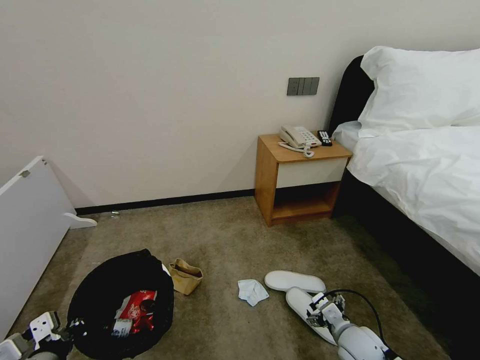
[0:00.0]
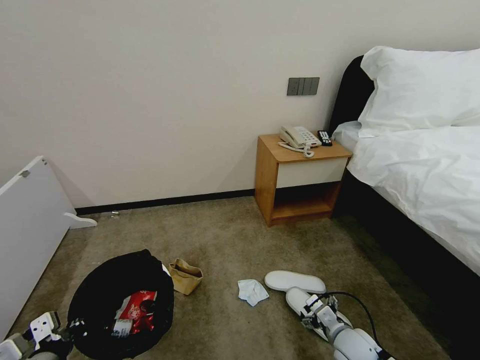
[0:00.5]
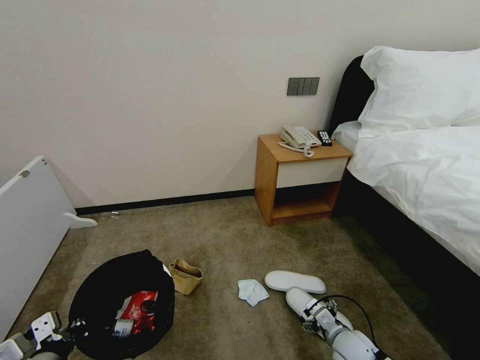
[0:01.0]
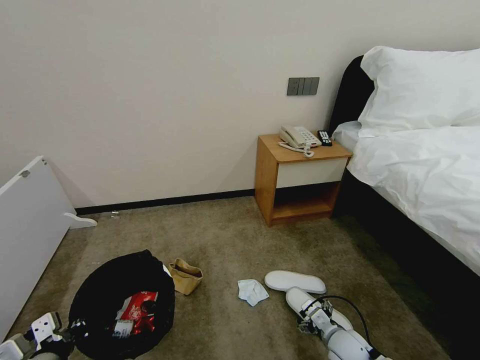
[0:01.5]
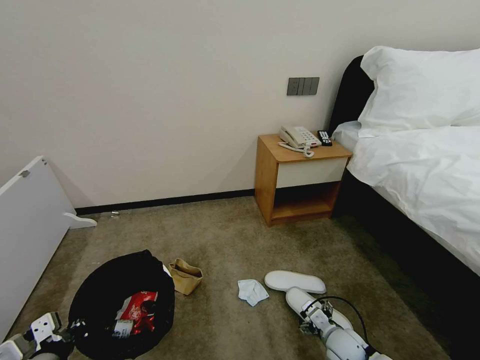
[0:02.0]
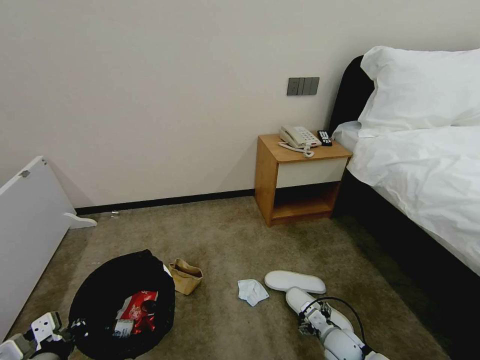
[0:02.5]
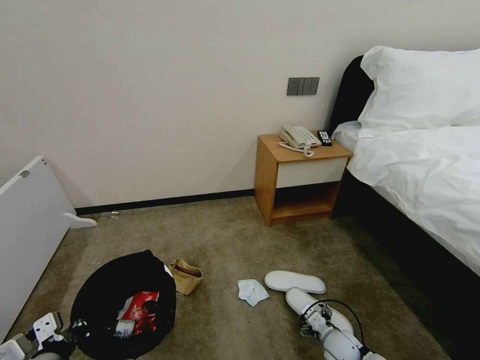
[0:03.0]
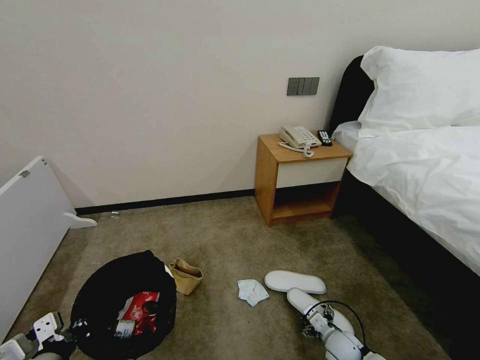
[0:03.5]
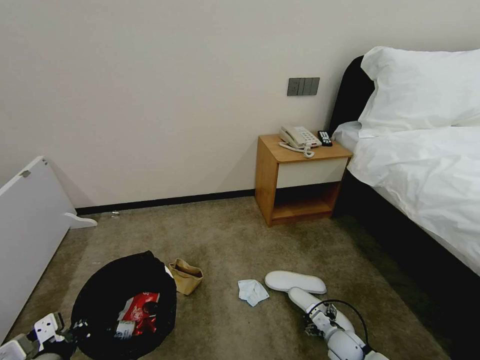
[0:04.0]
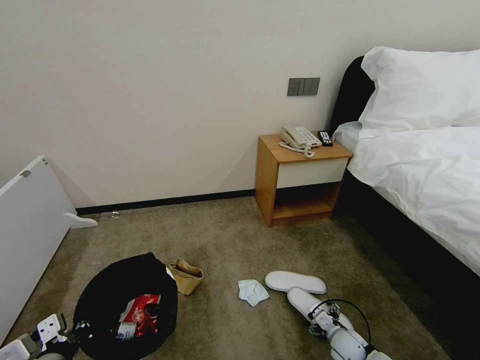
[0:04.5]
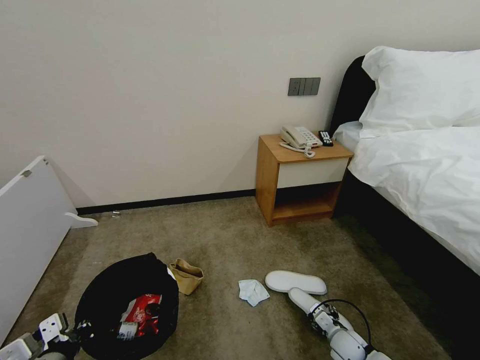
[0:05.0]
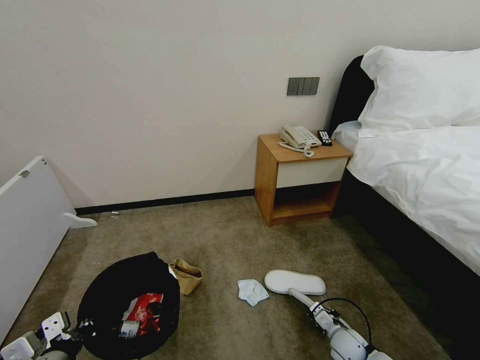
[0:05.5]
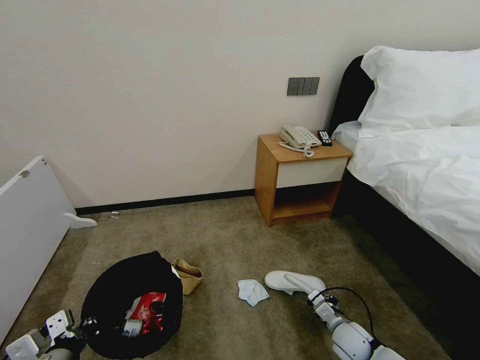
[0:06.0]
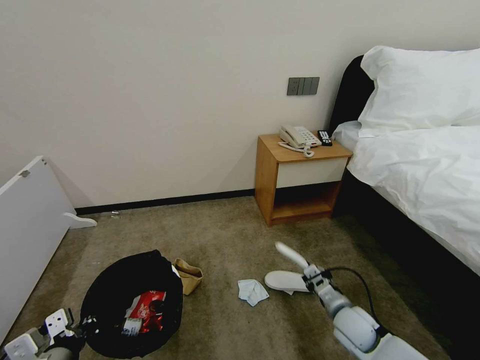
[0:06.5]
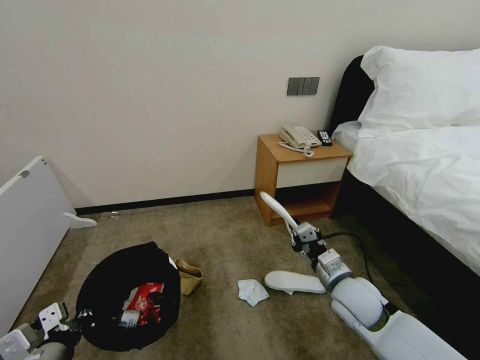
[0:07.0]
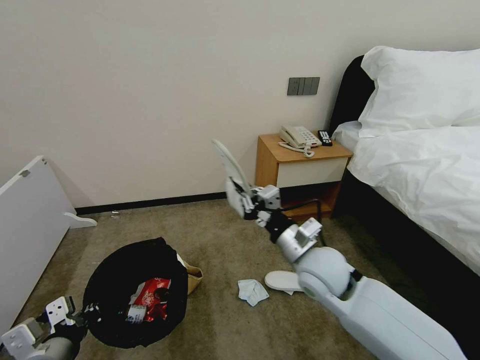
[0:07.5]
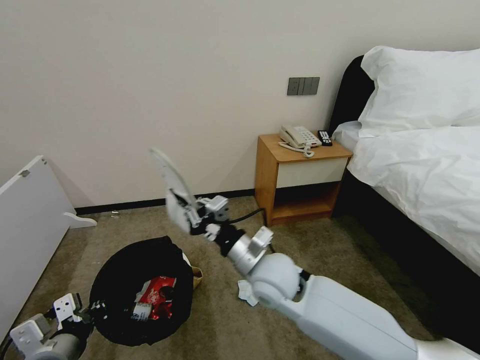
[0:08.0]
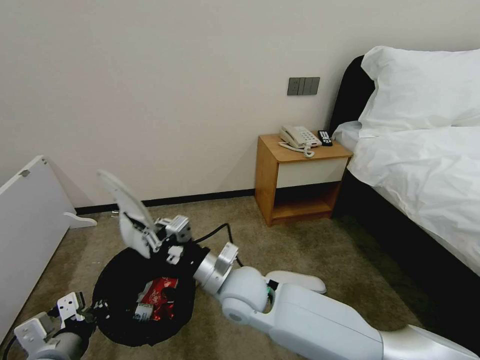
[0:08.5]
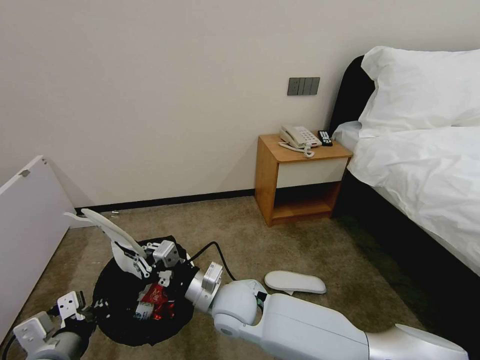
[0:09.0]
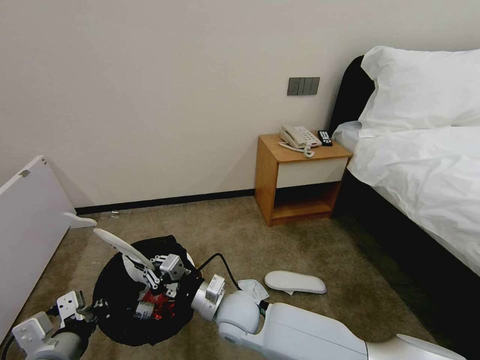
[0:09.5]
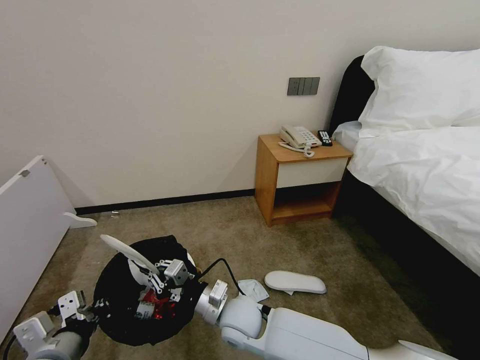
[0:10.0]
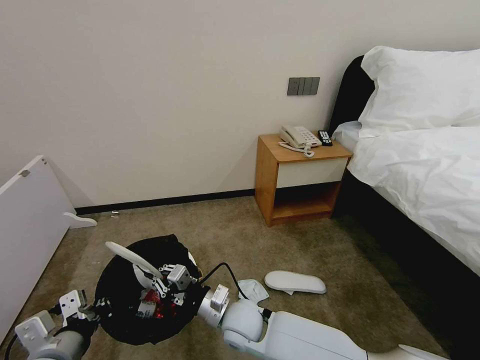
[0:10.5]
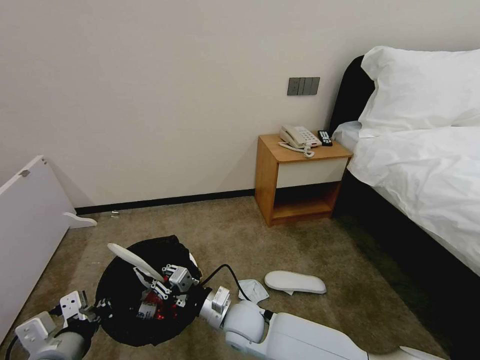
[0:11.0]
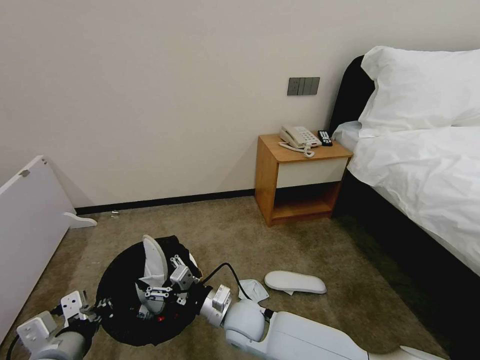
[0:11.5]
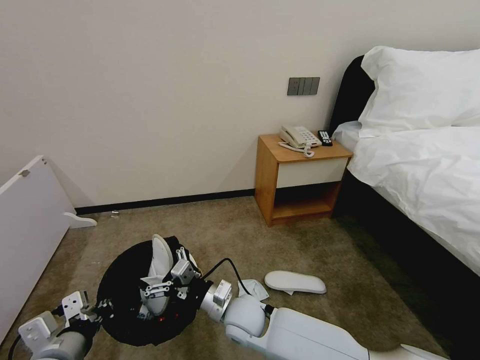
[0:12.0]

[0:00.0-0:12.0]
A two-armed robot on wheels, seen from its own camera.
Task of the whole recording: Pick up the trash bin, then pick up the garbage from the floor and place it into the trash bin.
0:00.0 to 0:02.0: The right gripper is displaced downward by some 5 cm.
0:02.0 to 0:04.0: The grippers make only small movements.
0:04.0 to 0:06.0: The right gripper shifts about 5 cm upward, and closes its fingers.
0:06.0 to 0:08.0: The right gripper moves upward and to the left, approximately 35 cm.
0:08.0 to 0:10.0: The right gripper travels downward and to the left by approximately 15 cm.
0:10.0 to 0:12.0: The right gripper opens its fingers.

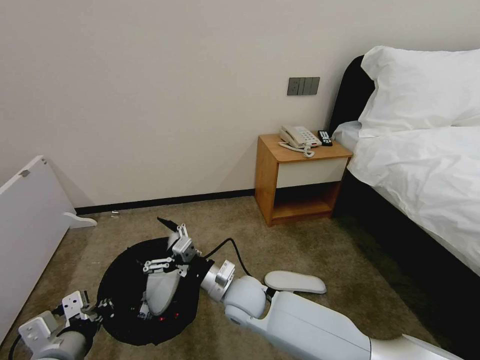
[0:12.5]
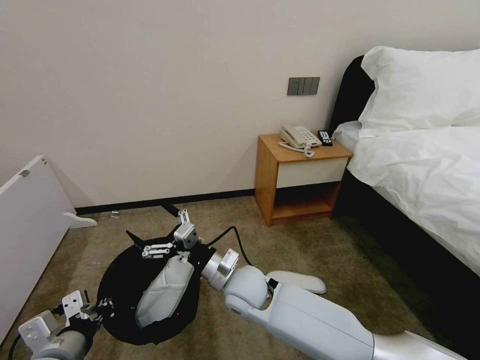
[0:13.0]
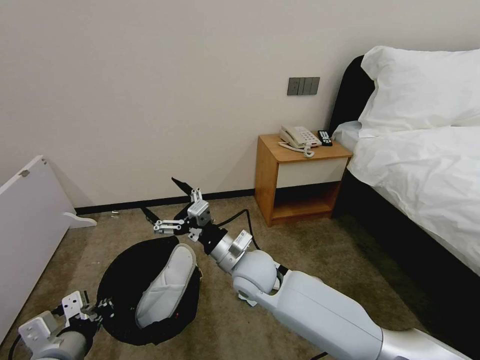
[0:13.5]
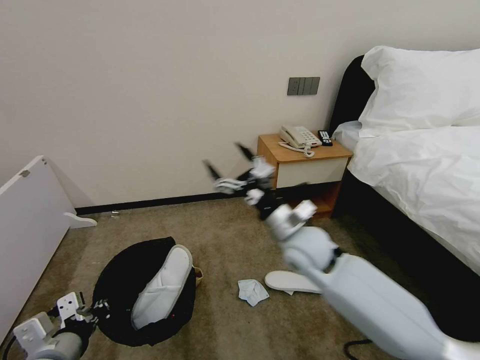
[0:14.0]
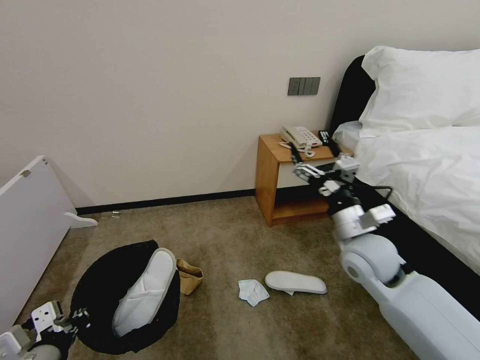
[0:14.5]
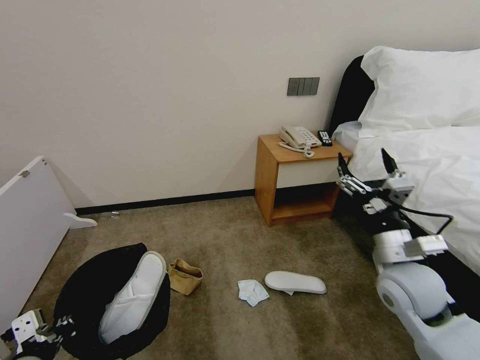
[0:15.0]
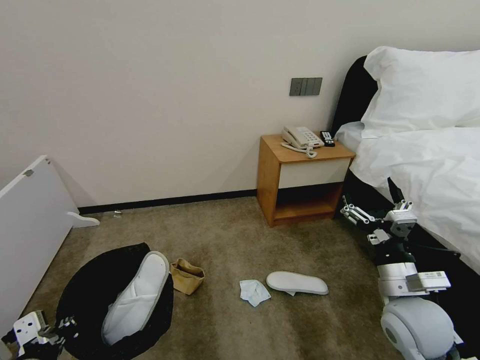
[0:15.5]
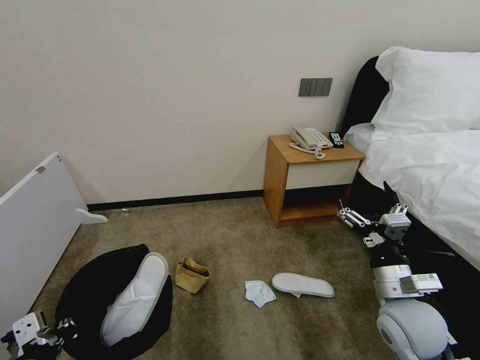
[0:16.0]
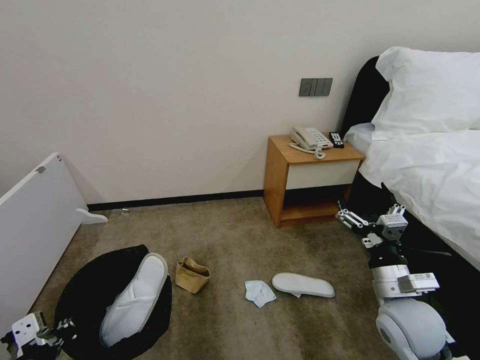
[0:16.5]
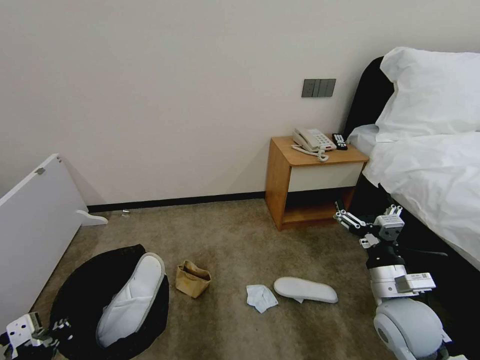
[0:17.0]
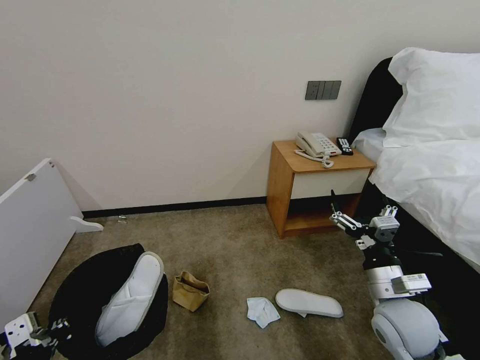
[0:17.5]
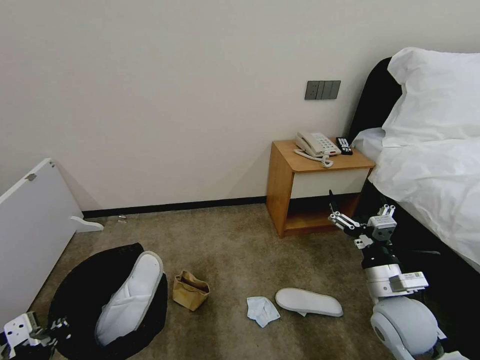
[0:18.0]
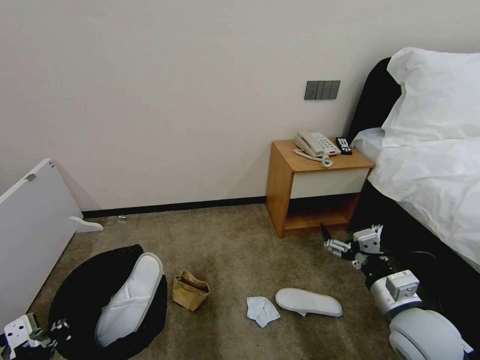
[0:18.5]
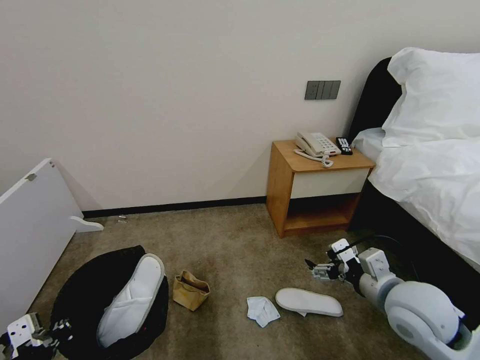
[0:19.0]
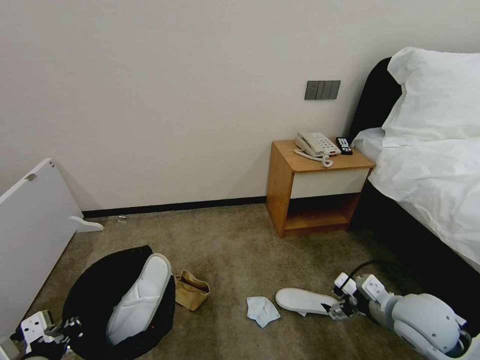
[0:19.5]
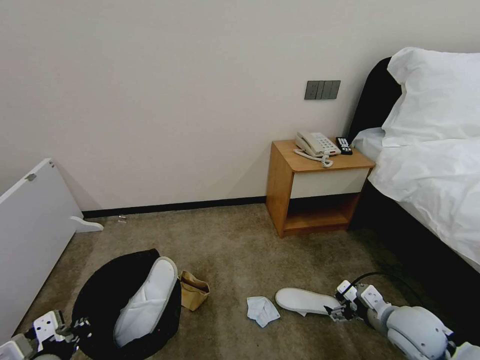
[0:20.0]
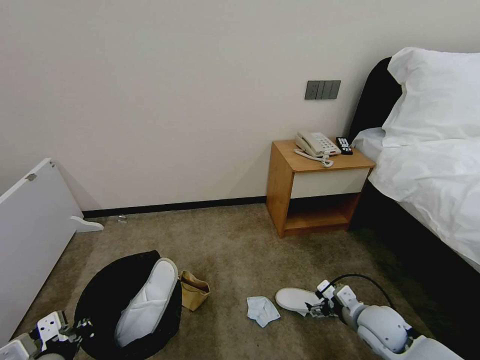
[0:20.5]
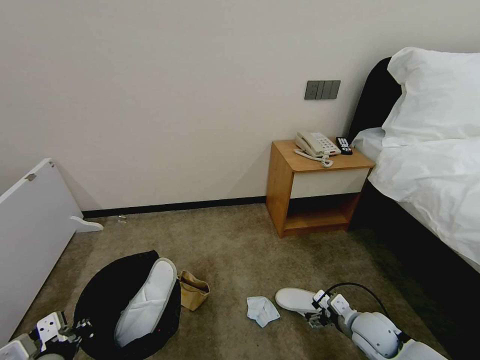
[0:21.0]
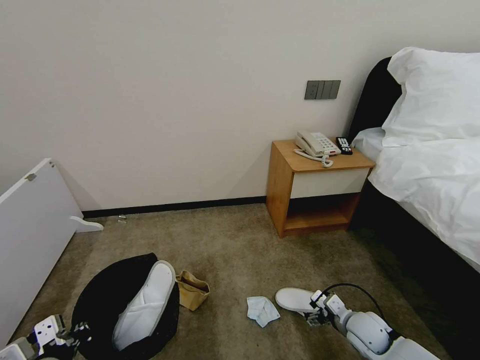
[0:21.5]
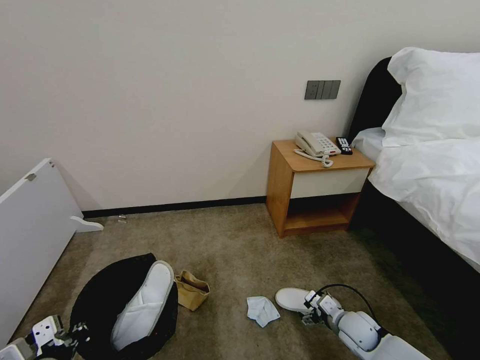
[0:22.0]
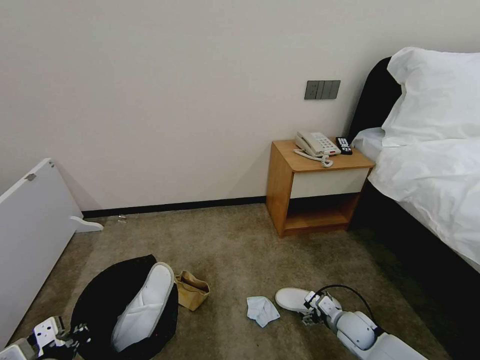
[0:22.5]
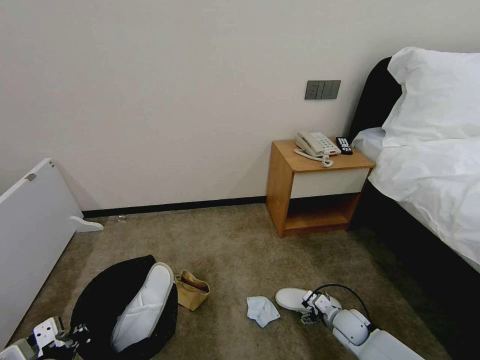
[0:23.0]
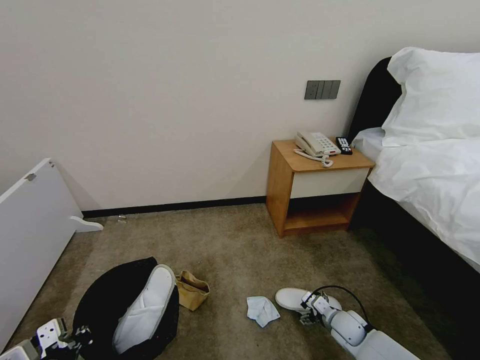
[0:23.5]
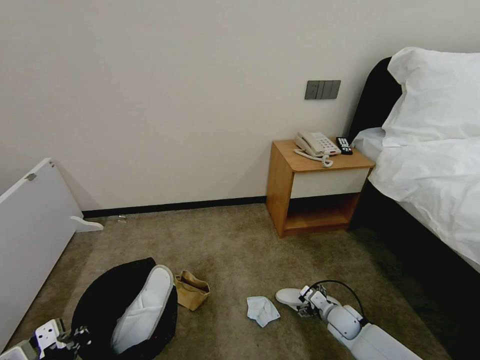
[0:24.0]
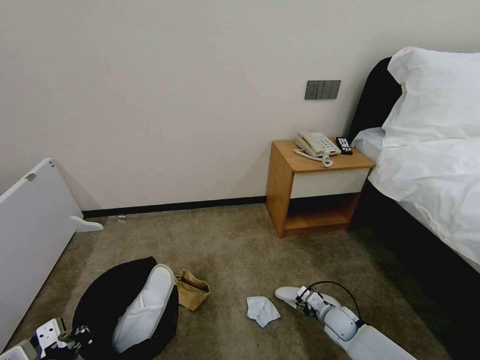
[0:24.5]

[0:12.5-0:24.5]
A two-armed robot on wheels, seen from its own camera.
Task of the whole recording: Pick up the trash bin, then pick up the garbage from the floor and place it into the trash bin.
0:12.5 to 0:14.5: The right gripper shifts approximately 25 cm to the right and upward.
0:14.5 to 0:16.5: The right gripper travels backward, downward and to the right by approximately 15 cm.
0:18.5 to 0:20.5: The right gripper moves downward and forward, about 15 cm.
0:20.5 to 0:22.5: The right gripper shifts roughly 10 cm downward.
0:22.5 to 0:24.5: The right gripper ends up some 5 cm from where it was, and closes its fingers.

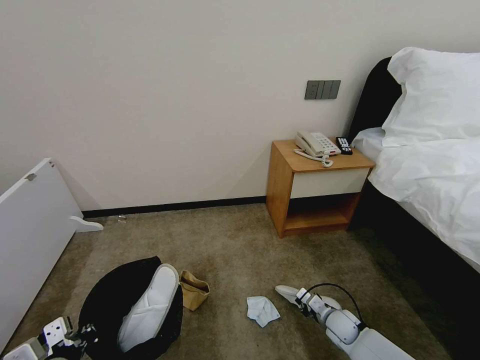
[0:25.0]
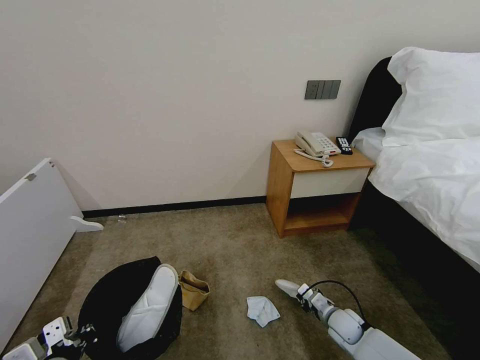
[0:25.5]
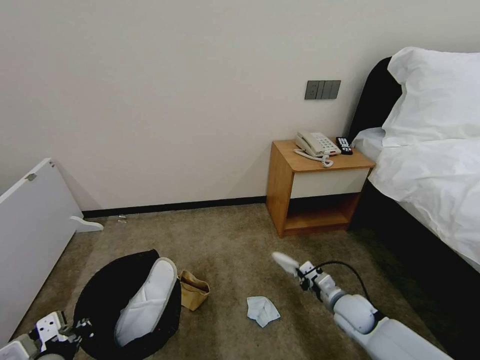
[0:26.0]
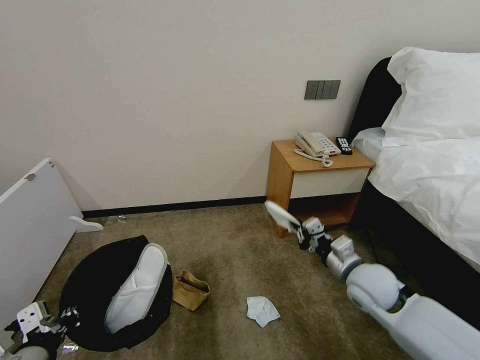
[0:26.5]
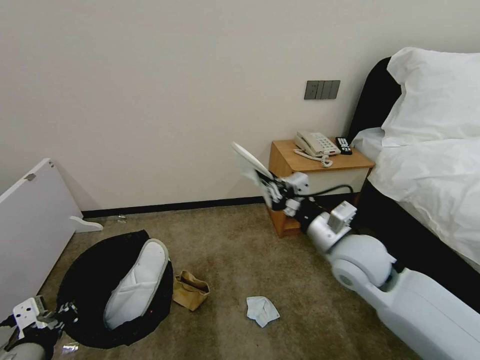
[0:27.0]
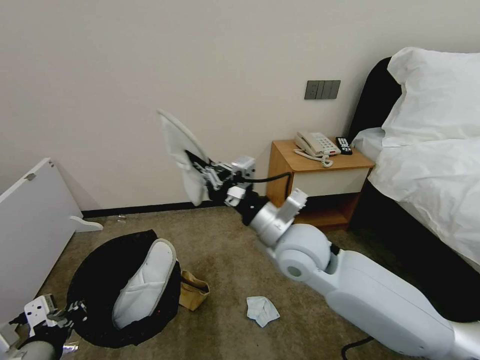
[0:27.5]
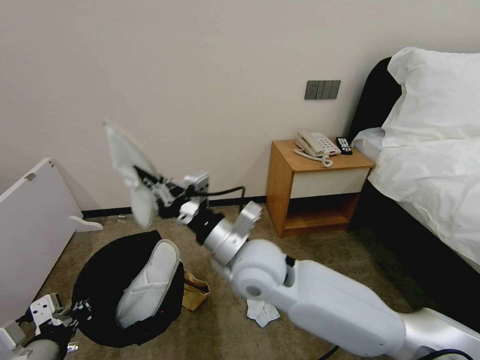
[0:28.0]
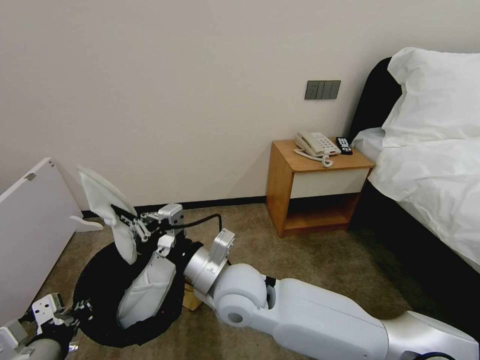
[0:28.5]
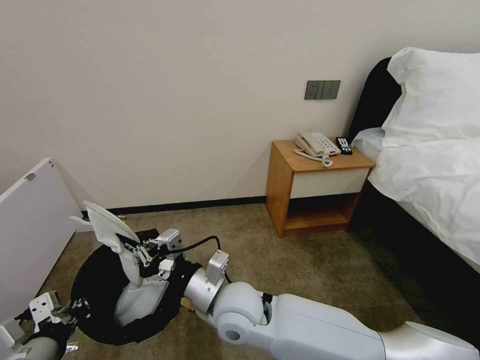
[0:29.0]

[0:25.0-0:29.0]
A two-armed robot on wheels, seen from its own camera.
Task of the whole recording: Pick up the trash bin, then pick up the garbage from the floor and place it into the trash bin.
0:25.0 to 0:27.0: The left gripper goes about 5 cm upward, while the right gripper heads upward, covering some 35 cm.
0:27.0 to 0:29.0: The right gripper travels to the left by approximately 20 cm.
